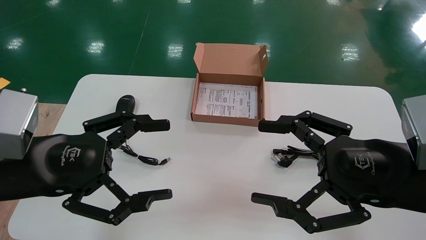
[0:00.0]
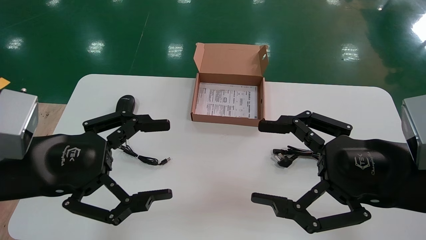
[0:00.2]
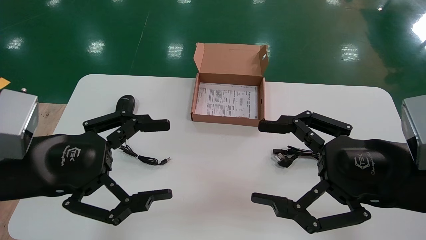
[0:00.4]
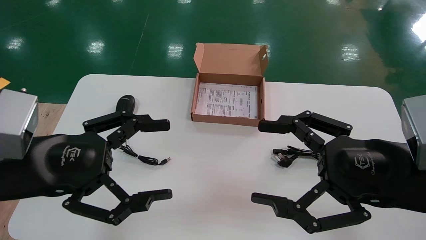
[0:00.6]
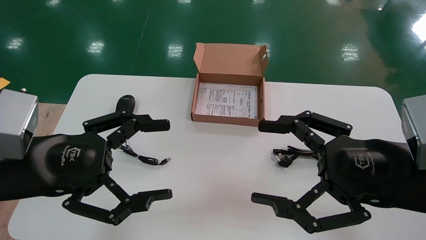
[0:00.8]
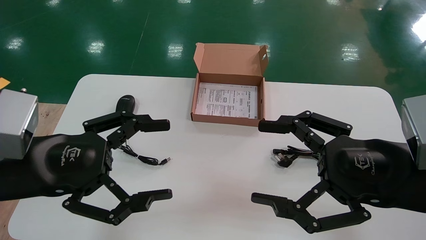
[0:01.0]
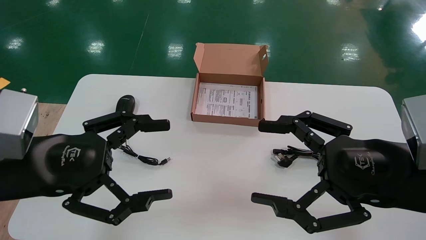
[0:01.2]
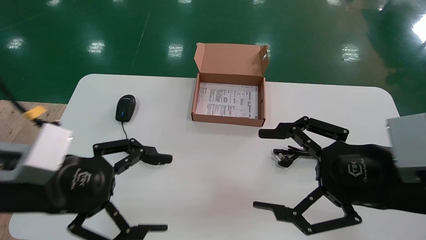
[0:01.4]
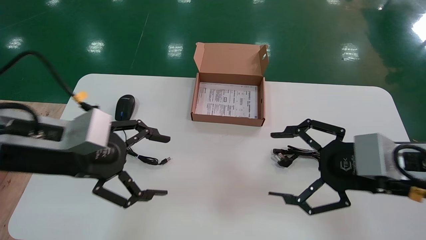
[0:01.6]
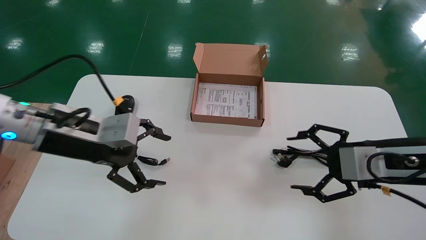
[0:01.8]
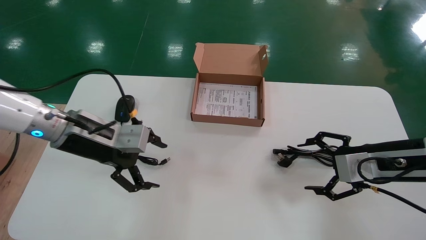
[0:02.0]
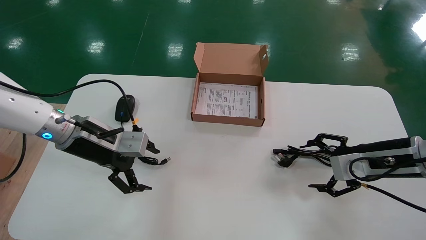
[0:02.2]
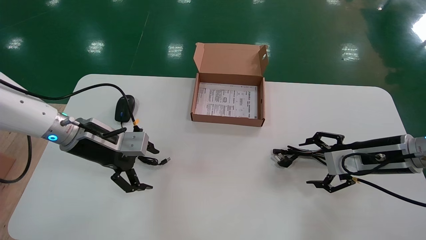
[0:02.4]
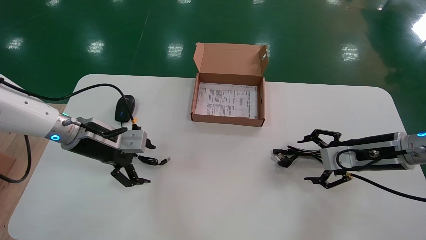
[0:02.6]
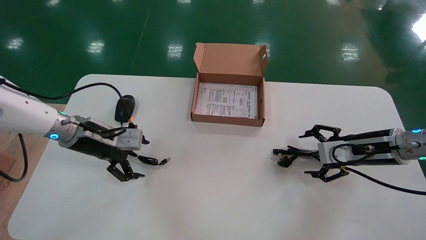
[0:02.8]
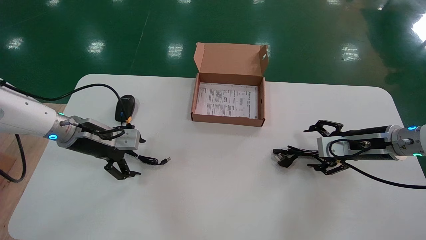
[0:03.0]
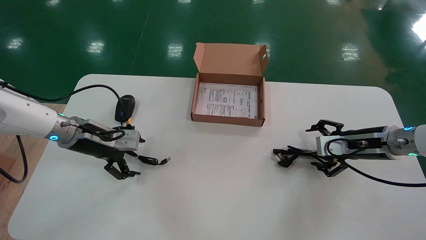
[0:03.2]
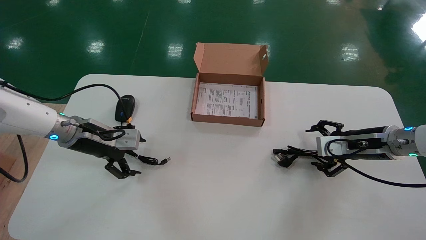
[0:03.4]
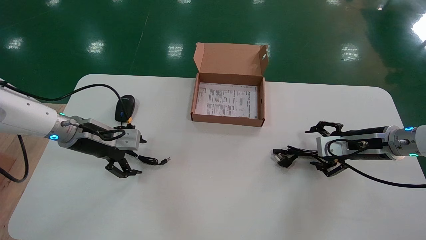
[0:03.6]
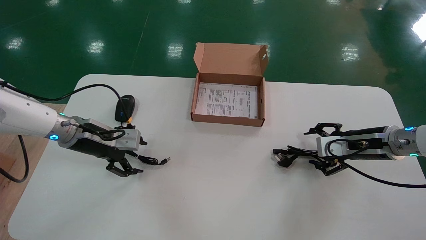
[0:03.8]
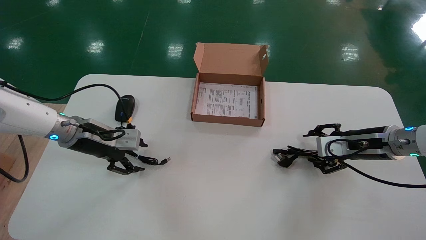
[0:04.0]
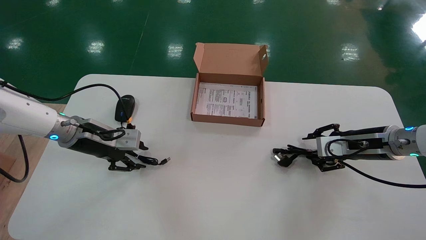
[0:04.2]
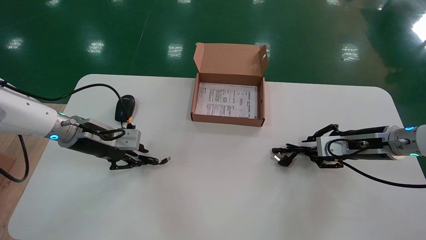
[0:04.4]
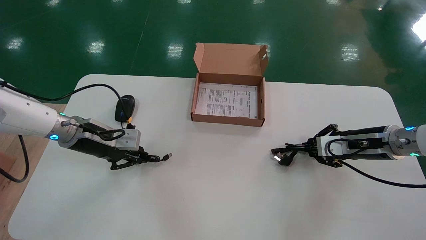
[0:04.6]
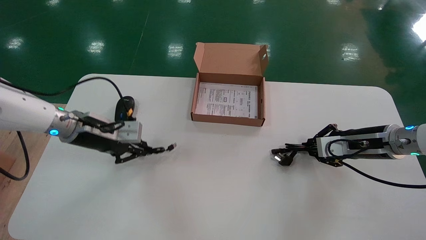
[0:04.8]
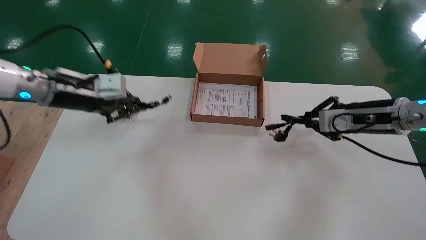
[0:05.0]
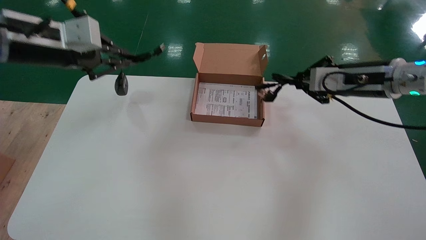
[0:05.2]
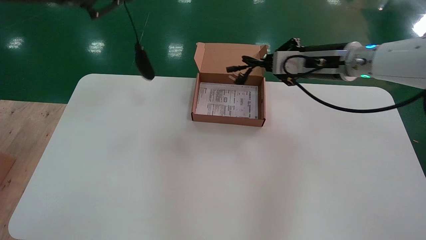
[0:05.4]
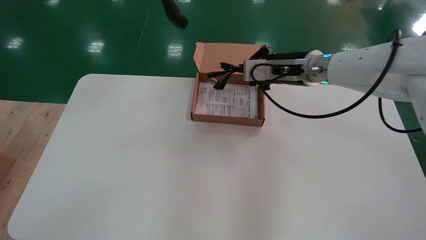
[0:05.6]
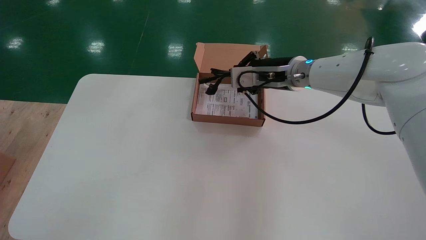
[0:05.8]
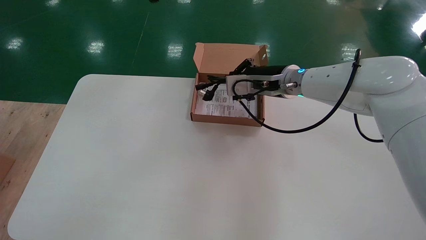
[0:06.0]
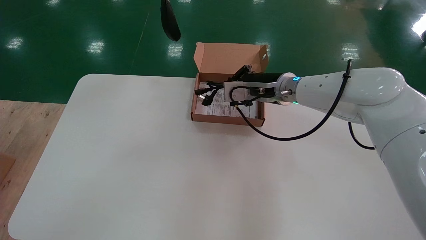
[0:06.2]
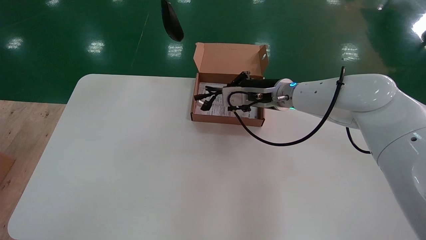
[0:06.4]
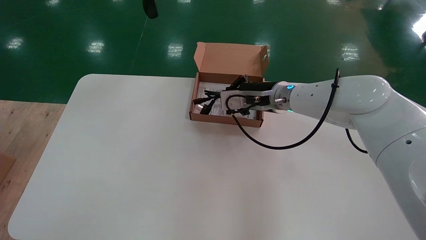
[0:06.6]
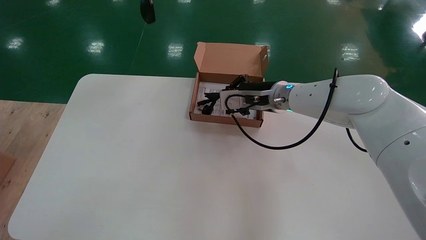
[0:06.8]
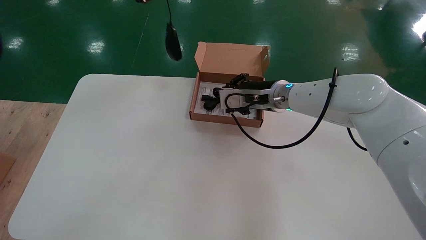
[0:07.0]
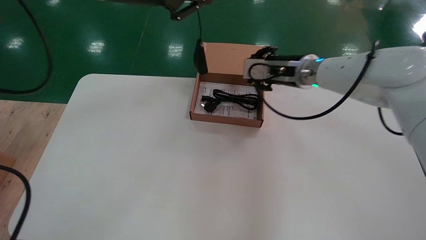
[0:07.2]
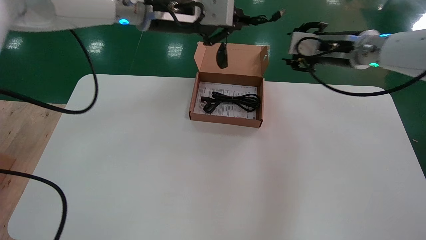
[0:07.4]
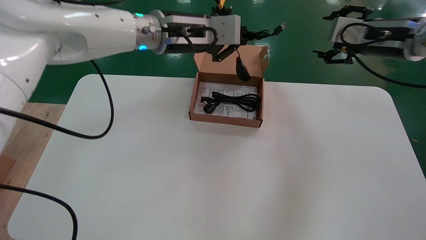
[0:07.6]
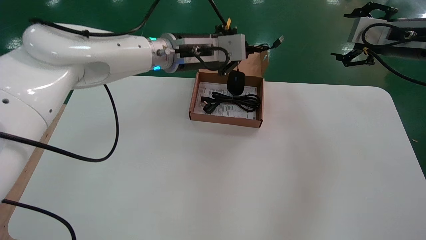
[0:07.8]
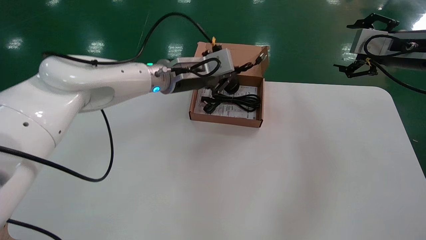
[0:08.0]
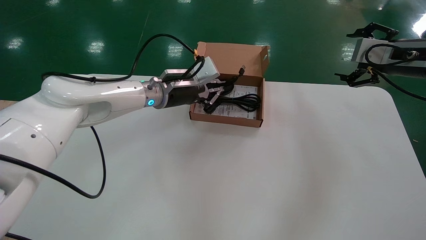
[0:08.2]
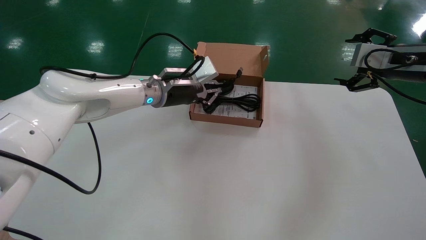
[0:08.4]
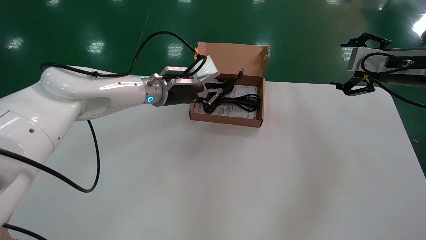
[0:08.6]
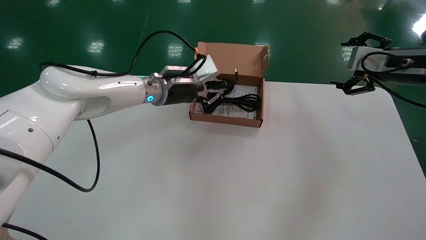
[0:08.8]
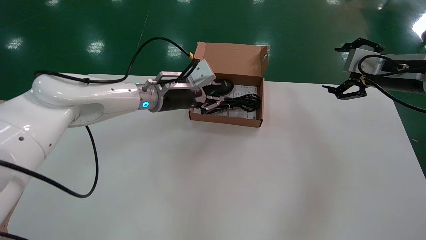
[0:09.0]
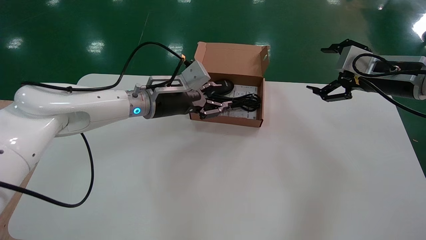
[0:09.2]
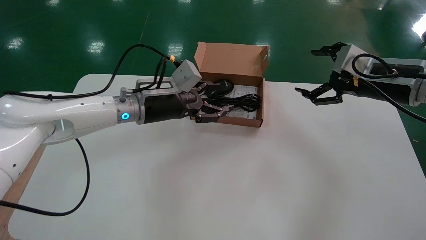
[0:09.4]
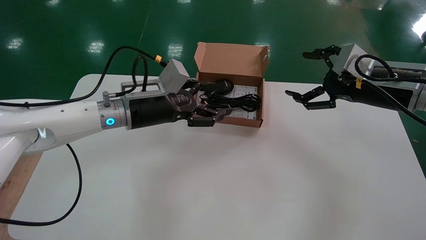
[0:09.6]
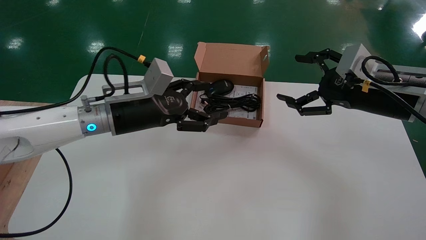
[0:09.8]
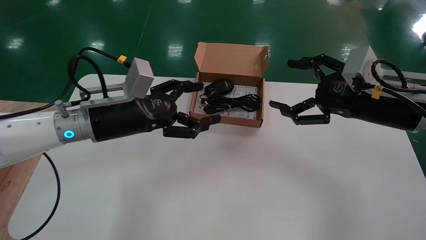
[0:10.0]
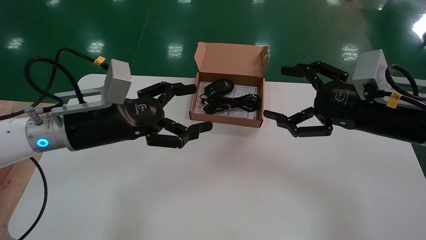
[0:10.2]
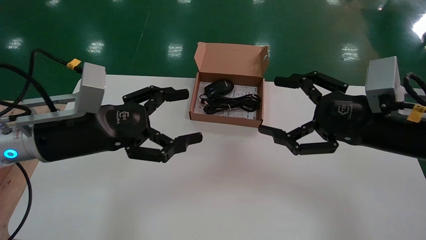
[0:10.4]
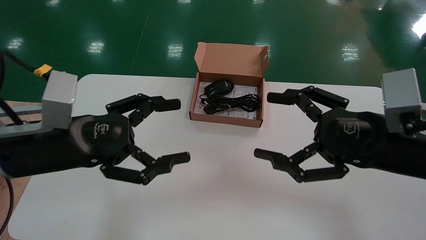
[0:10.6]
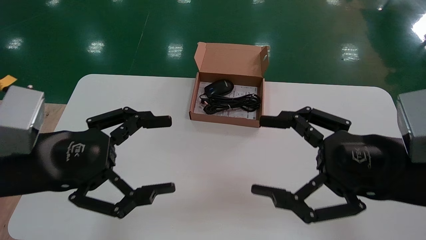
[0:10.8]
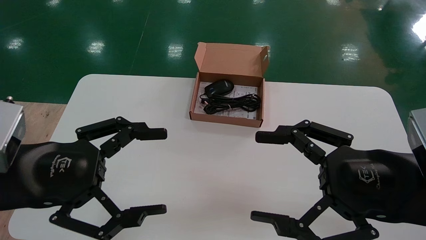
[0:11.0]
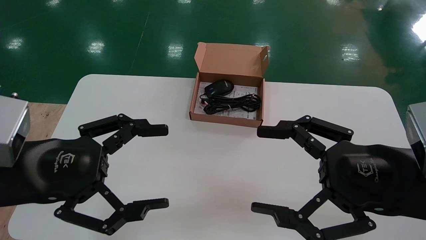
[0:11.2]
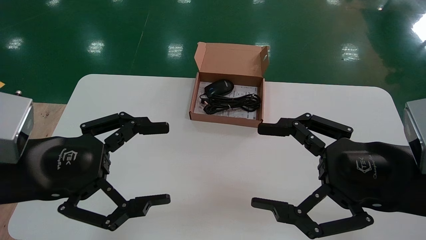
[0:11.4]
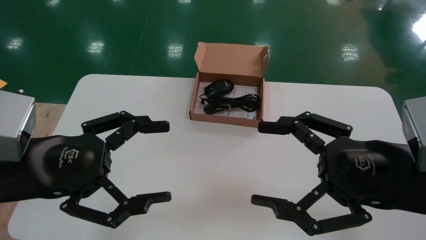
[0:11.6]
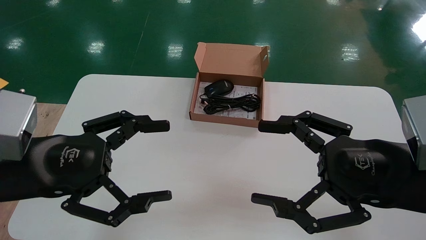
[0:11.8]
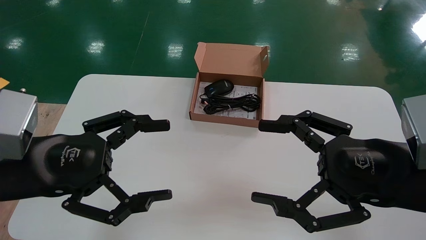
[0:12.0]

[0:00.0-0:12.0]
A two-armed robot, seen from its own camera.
Step, 0:01.6 to 0:04.8: Simultaneously pick up the mouse and power cord from the accessory packaging area.
Step, 0:05.0 to 0:09.4: Place the mouse and power cord into the box.
0:00.0 to 0:01.6: Both grippers travel together forward, about 5 cm.
0:01.6 to 0:03.0: The left gripper moves forward and downward, about 15 cm, while the right gripper moves forward and to the right, roughly 15 cm.
0:03.0 to 0:04.4: The left gripper closes up, while the right gripper closes its fingers.
0:04.4 to 0:06.0: The right gripper shifts some 25 cm to the left and upward, while the left gripper shifts about 35 cm upward, and closes up.
0:06.0 to 0:07.6: The right gripper goes some 20 cm to the right and upward, and opens. The left gripper shifts roughly 20 cm downward, to the right and forward.
0:07.6 to 0:09.0: The left gripper shifts some 15 cm downward; the right gripper ends up about 5 cm from where it was, and opens its fingers.
0:09.0 to 0:10.4: Both grippers travel together backward and to the left, roughly 20 cm. The left gripper opens.
0:10.4 to 0:12.0: The grippers both shift backward by roughly 10 cm.

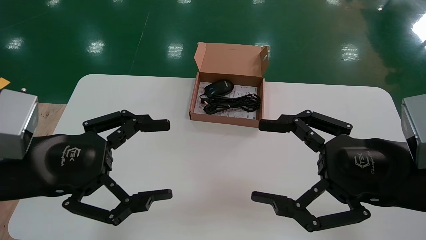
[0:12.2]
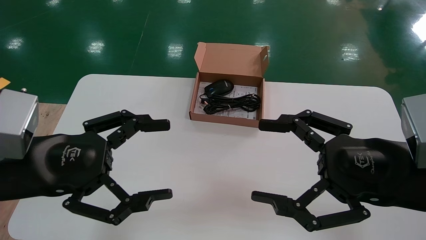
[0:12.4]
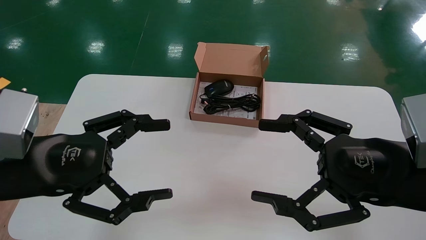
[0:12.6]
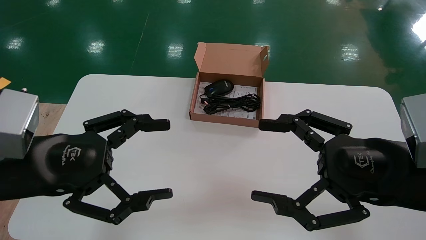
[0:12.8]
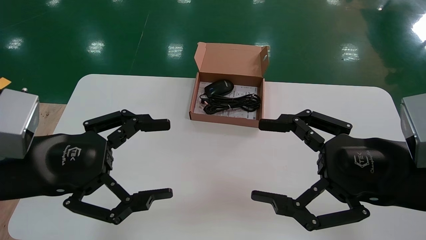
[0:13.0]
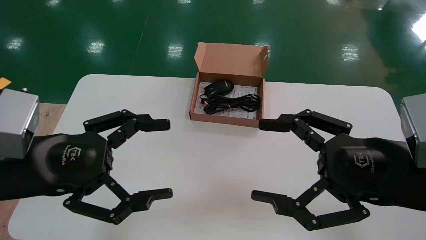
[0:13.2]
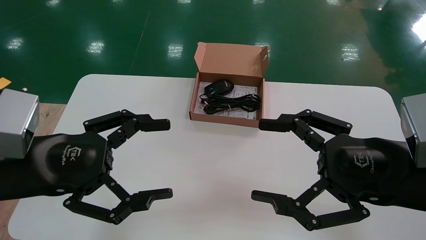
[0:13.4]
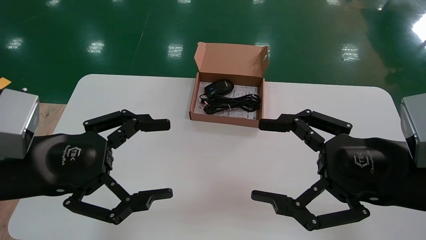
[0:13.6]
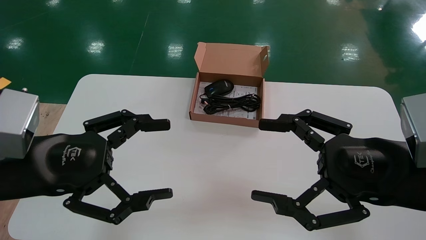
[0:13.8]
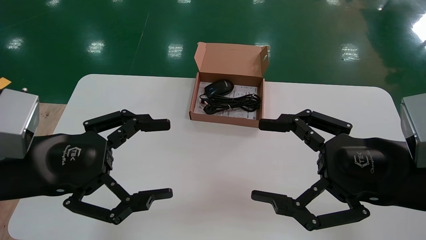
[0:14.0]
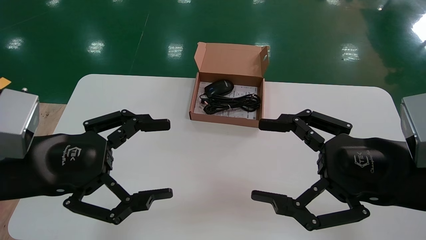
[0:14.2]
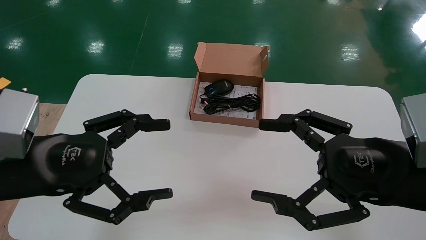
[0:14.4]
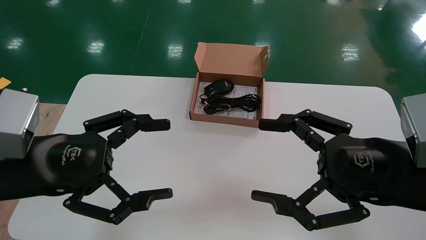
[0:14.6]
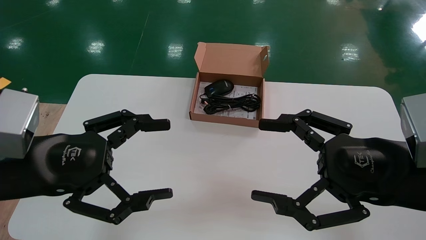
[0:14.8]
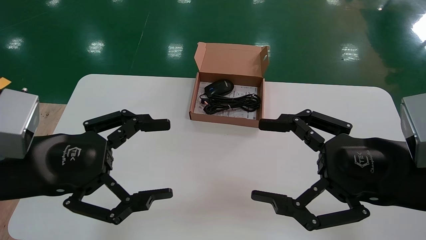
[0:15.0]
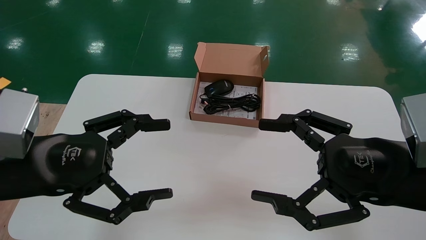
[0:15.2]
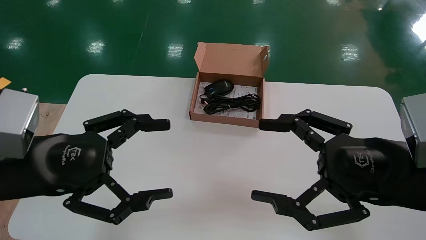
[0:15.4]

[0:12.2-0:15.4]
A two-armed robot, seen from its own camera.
0:12.2 to 0:15.4: Both grippers stay about where they are.
